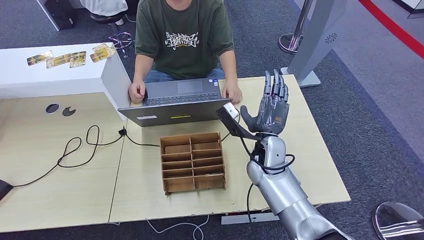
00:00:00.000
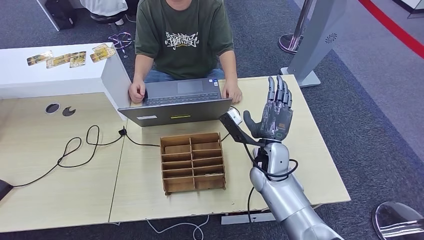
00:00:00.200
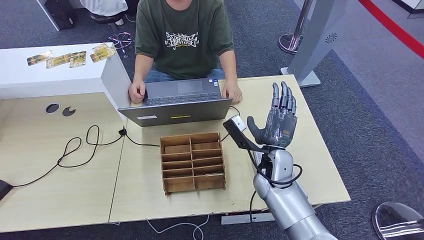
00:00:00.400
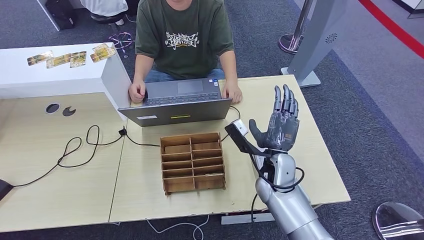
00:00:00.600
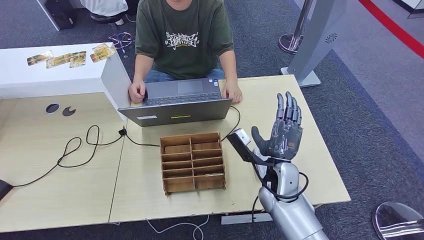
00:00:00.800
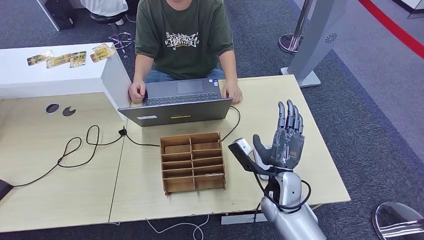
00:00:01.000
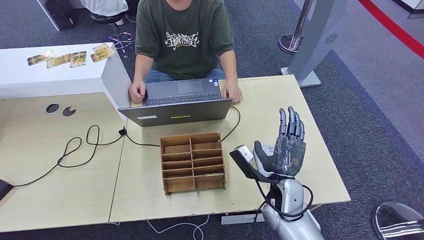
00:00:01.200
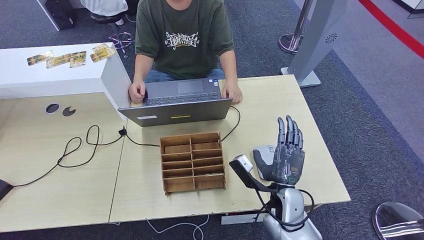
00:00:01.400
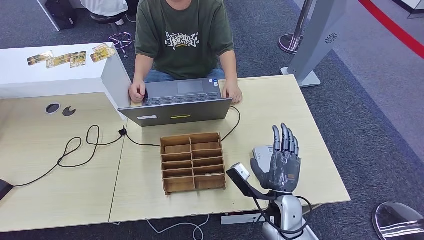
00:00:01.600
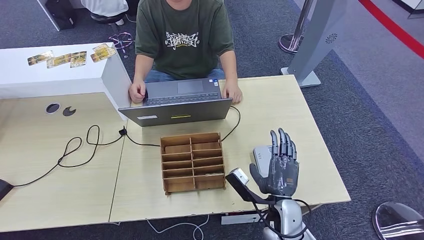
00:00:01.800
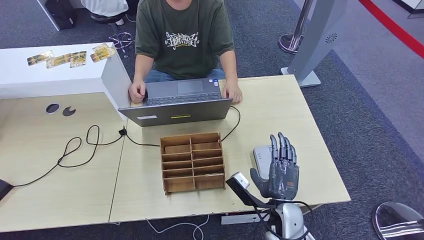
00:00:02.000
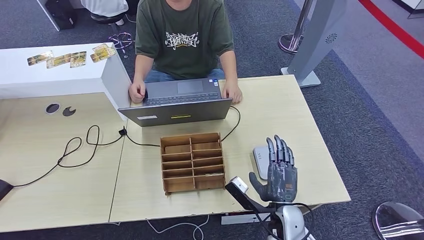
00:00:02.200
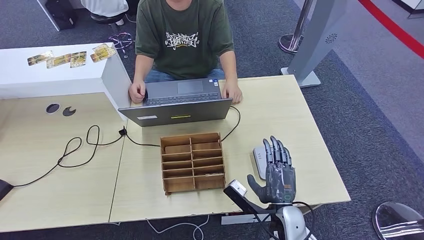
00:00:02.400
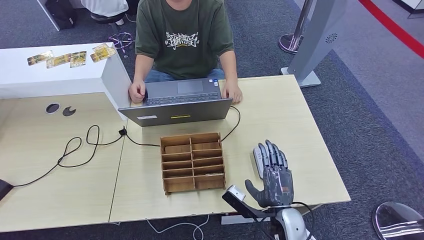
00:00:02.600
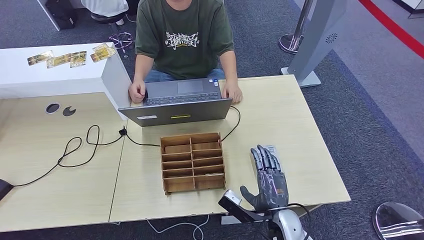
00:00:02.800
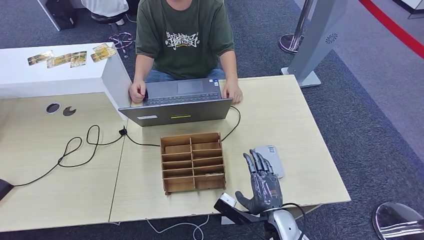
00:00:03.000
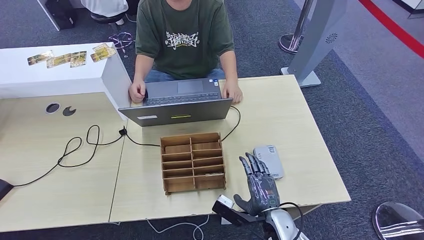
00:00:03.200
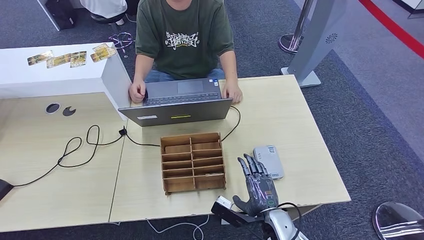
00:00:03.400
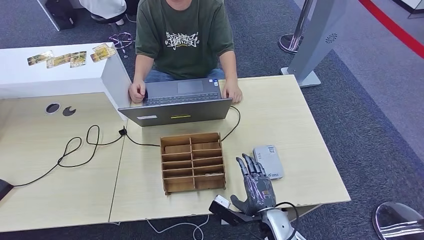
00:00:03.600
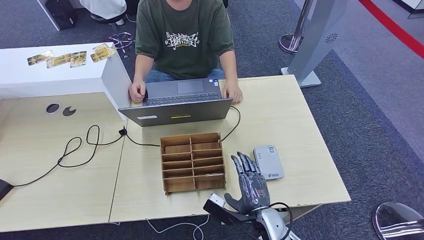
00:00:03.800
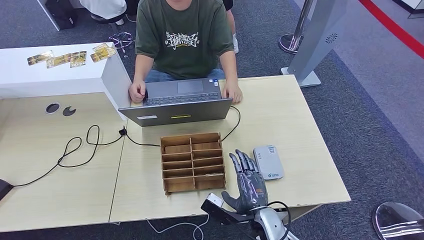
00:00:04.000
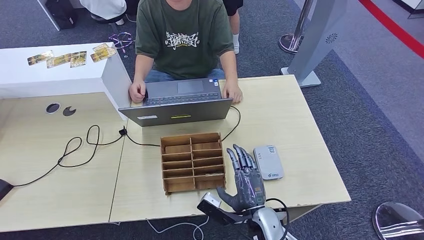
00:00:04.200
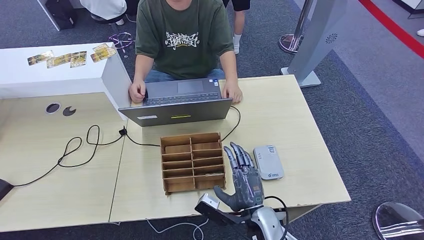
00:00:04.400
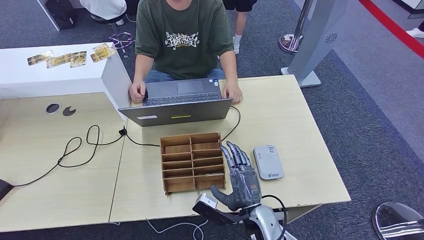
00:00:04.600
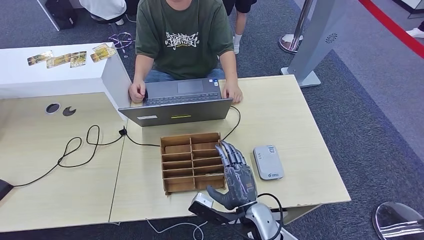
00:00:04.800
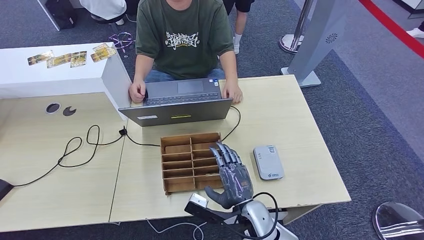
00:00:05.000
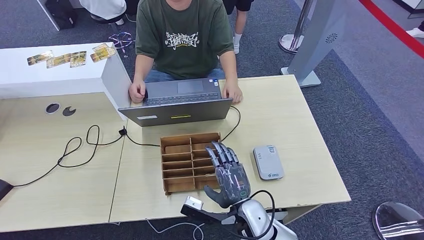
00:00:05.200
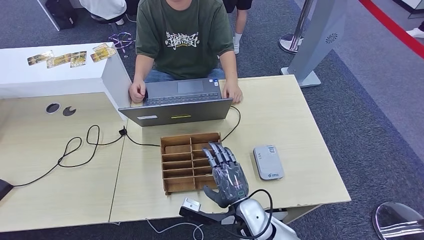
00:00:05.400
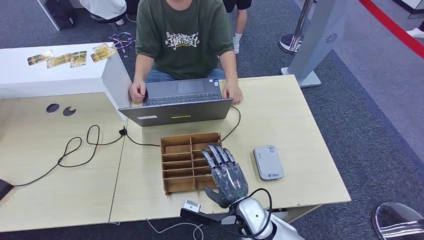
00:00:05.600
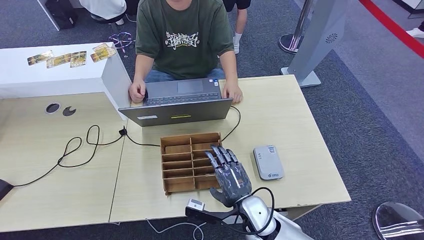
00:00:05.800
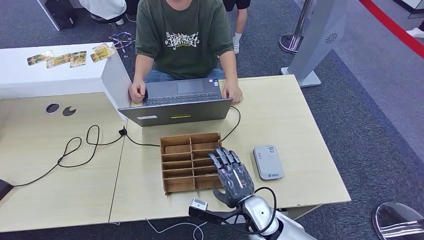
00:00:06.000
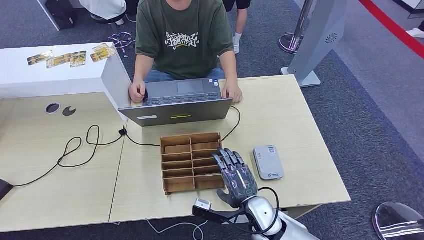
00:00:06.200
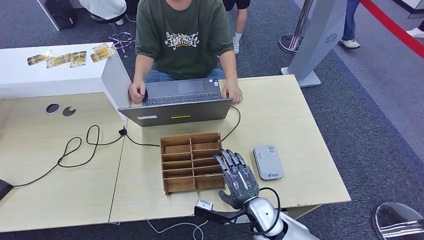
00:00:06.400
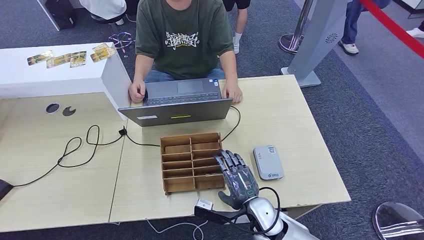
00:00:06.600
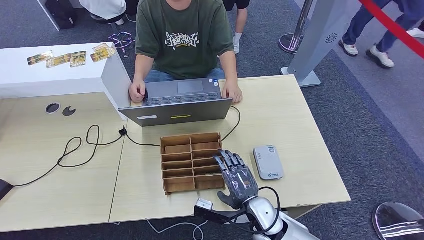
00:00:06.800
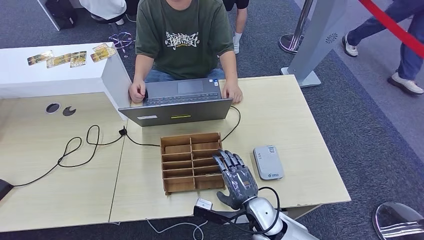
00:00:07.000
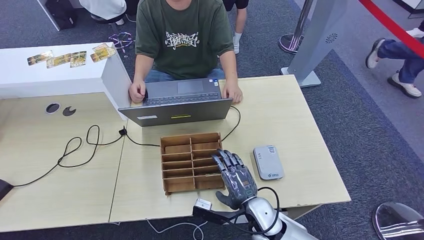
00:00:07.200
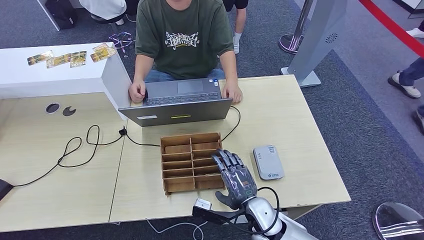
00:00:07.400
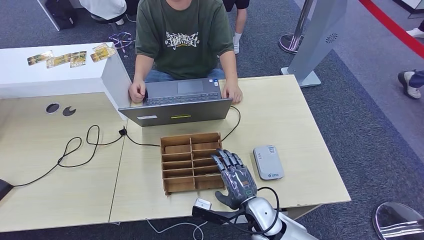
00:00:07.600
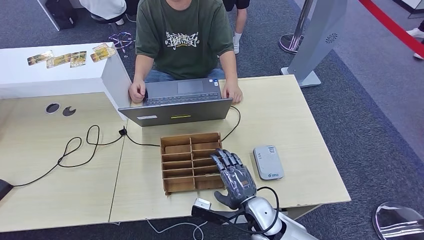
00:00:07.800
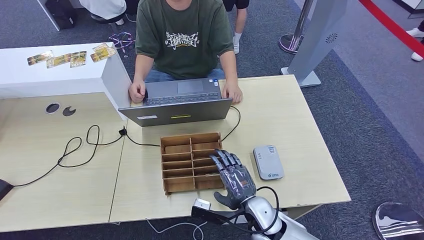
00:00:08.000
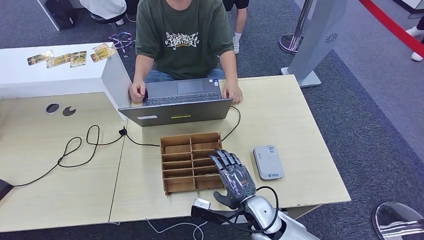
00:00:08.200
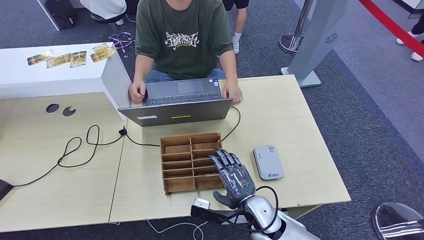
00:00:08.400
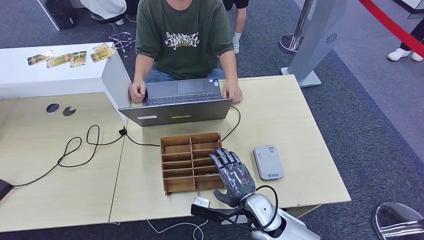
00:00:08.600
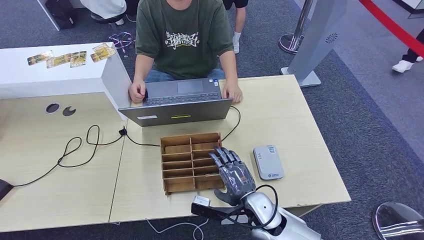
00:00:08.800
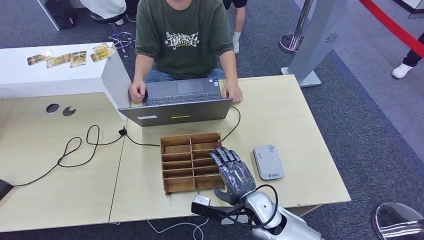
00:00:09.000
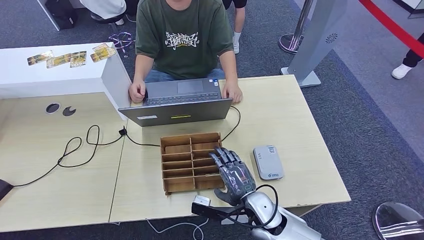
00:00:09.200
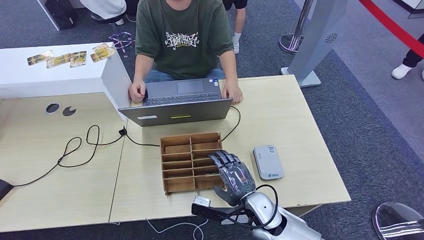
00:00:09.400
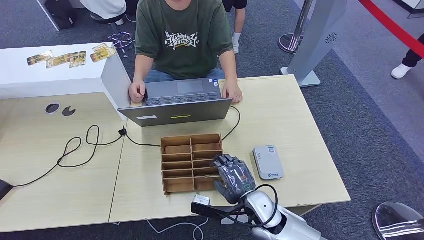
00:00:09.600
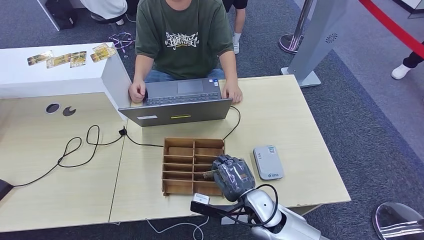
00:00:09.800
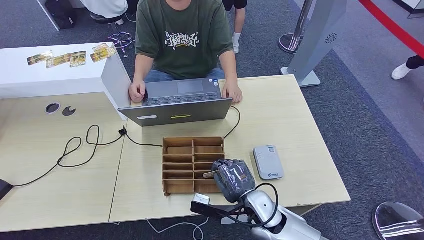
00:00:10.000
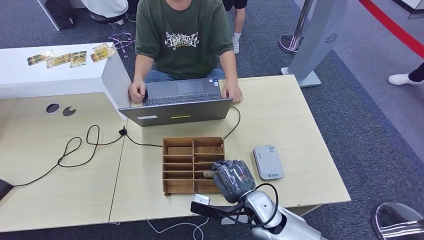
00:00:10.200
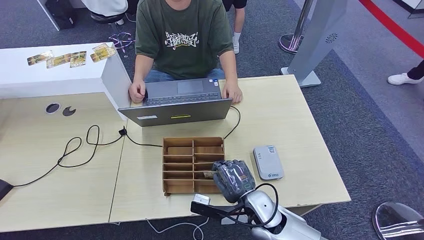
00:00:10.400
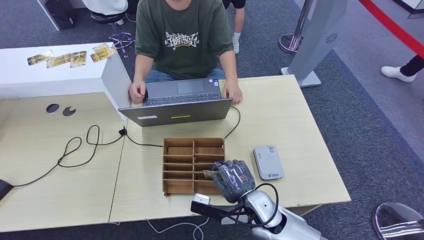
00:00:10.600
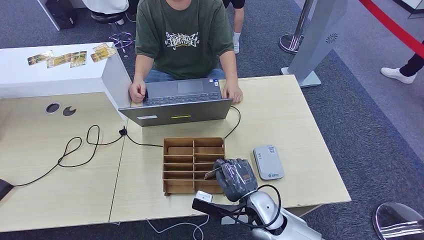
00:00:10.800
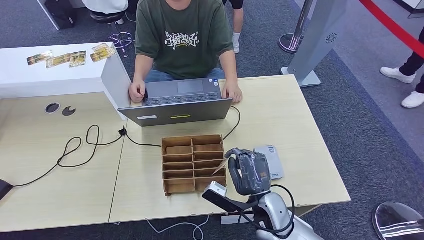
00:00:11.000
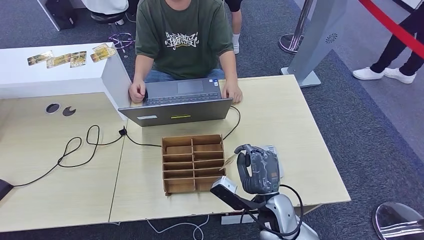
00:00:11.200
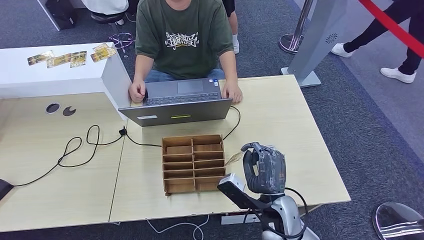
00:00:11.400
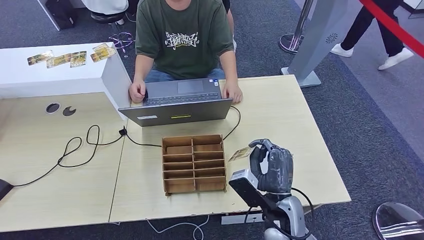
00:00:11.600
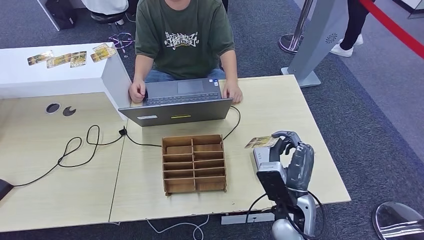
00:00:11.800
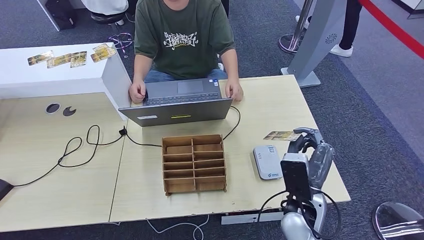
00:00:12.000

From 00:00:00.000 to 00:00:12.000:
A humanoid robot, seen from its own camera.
Step, from 00:00:09.000 to 00:00:11.800: Pick up the room key from the key card box.
From 00:00:00.000 to 00:00:01.600: The right hand goes some 15 cm backward and downward.
From 00:00:01.600 to 00:00:03.000: The right hand shifts by about 5 cm.
From 00:00:03.000 to 00:00:04.400: The right hand shifts by some 5 cm.
From 00:00:06.000 to 00:00:09.000: The hands stay close to where they were, moving slightly.
From 00:00:09.000 to 00:00:10.400: Both hands stay about where they are.
From 00:00:10.400 to 00:00:12.000: The right hand moves upward and to the right, some 10 cm.

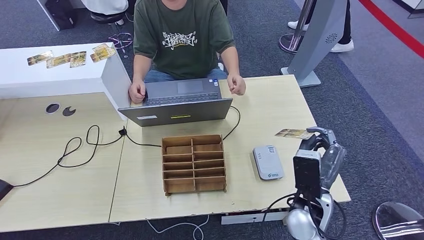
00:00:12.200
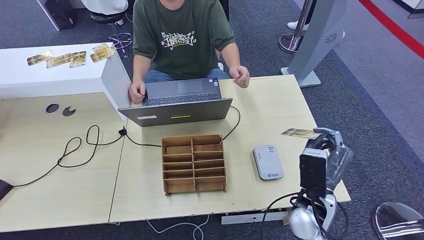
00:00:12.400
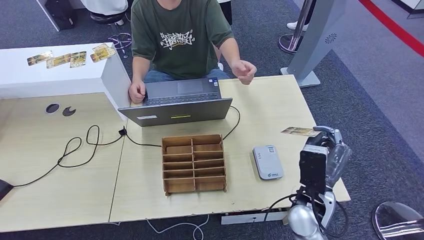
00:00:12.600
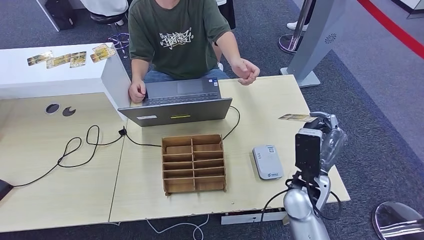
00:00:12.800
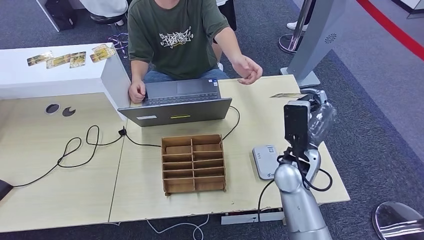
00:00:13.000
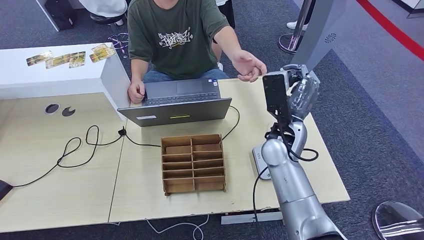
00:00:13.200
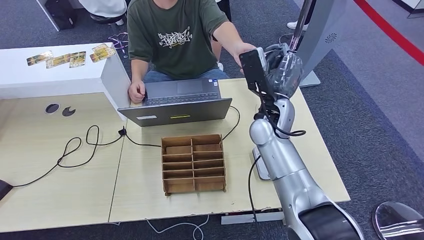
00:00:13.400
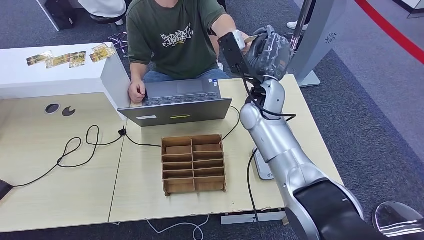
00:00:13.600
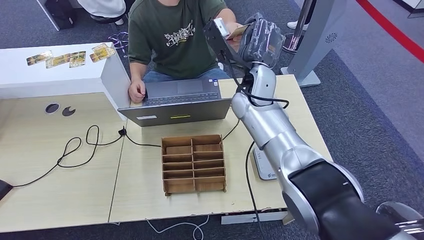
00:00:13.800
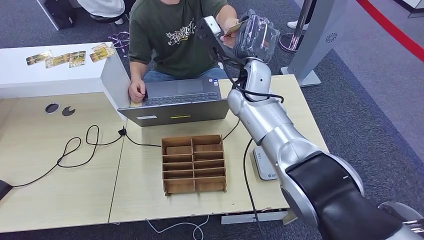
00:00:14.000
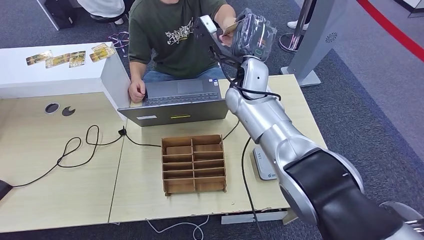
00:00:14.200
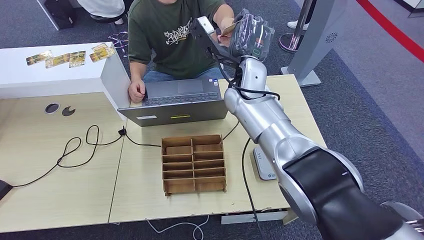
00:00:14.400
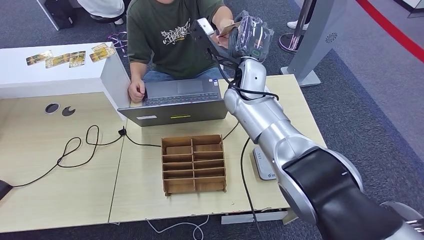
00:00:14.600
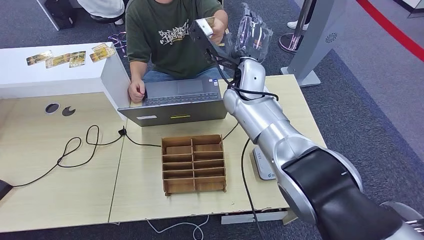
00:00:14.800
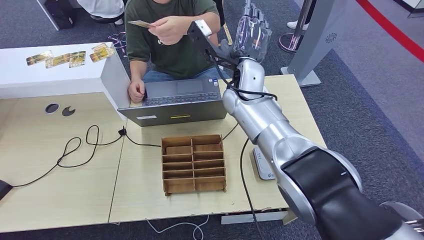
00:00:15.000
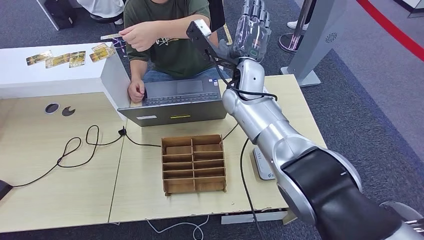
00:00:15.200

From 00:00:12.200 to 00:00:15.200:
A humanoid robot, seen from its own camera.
Step, from 00:00:12.200 to 00:00:15.200: Hand the room key to the person.
From 00:00:12.200 to 00:00:13.800: The right hand shifts some 30 cm forward and upward.
From 00:00:13.800 to 00:00:15.200: There are only small adjustments of the hands.
